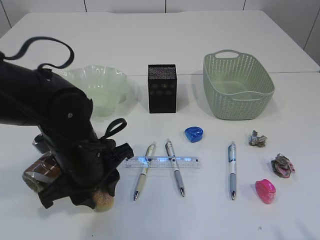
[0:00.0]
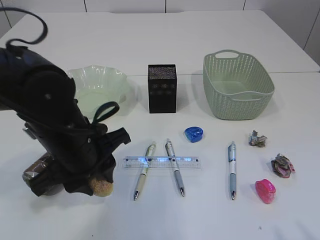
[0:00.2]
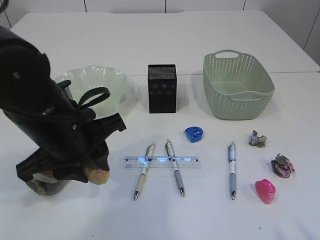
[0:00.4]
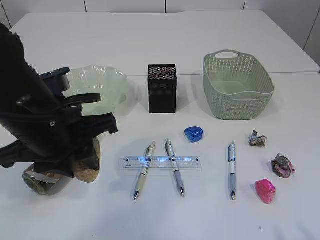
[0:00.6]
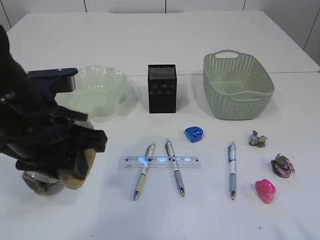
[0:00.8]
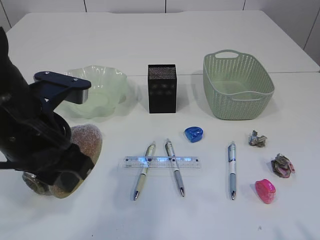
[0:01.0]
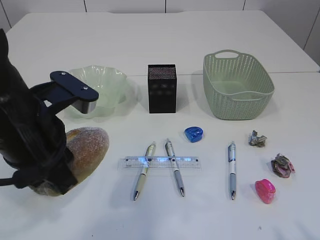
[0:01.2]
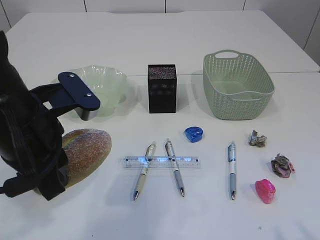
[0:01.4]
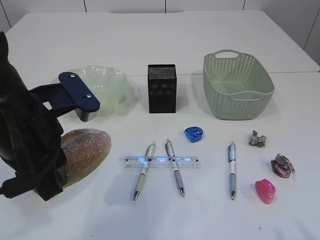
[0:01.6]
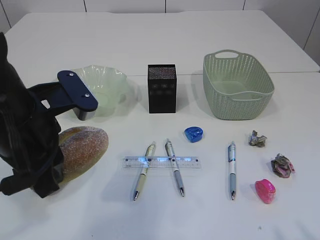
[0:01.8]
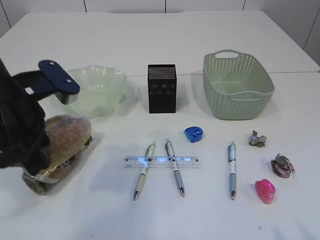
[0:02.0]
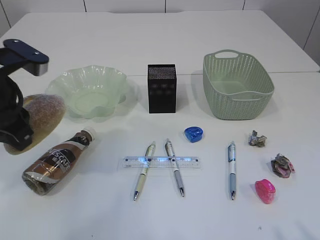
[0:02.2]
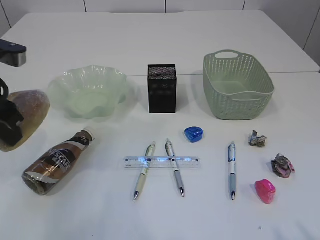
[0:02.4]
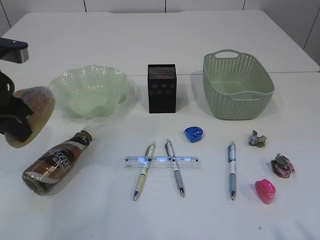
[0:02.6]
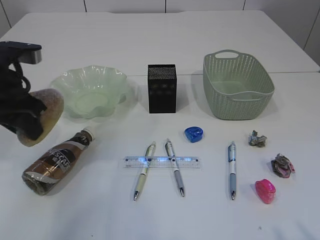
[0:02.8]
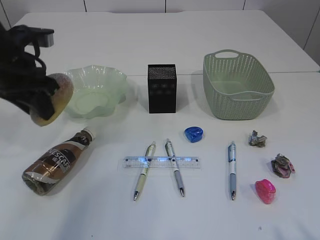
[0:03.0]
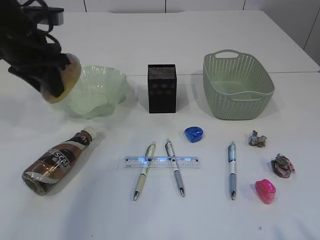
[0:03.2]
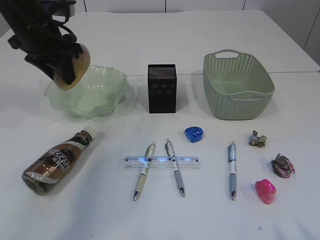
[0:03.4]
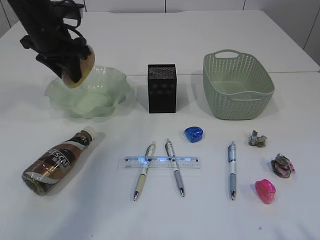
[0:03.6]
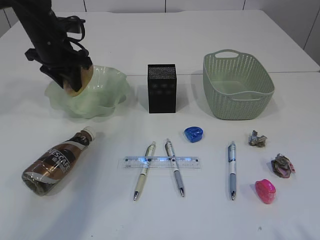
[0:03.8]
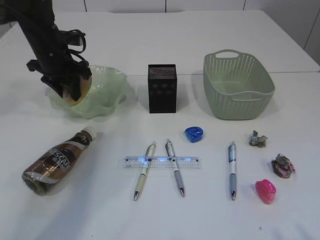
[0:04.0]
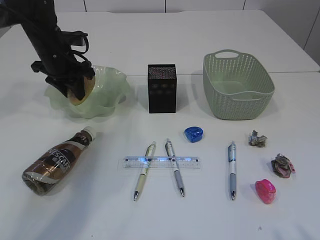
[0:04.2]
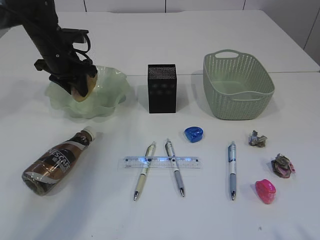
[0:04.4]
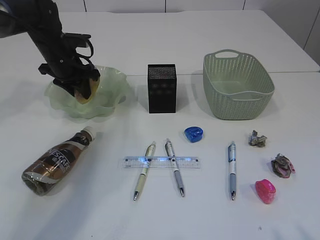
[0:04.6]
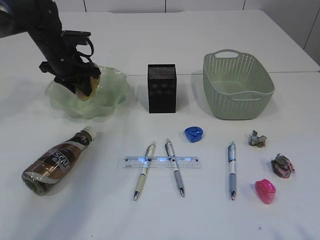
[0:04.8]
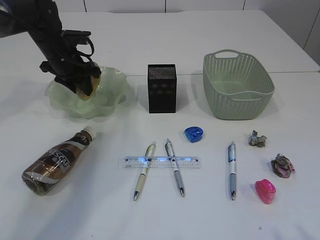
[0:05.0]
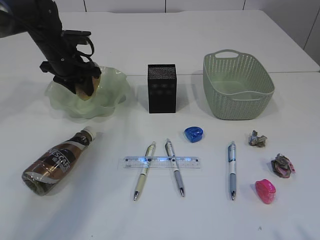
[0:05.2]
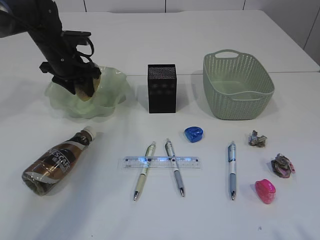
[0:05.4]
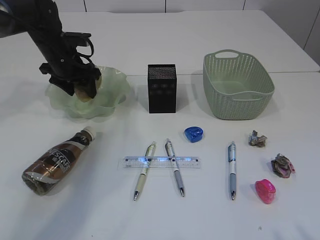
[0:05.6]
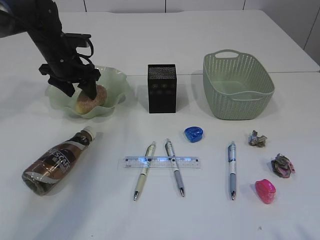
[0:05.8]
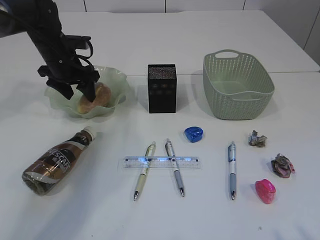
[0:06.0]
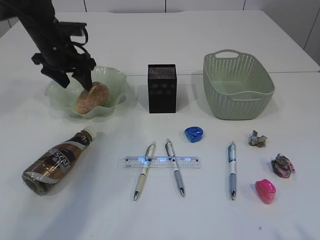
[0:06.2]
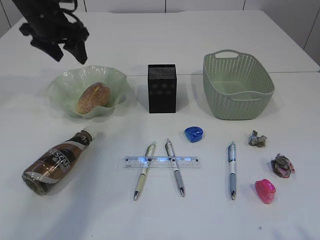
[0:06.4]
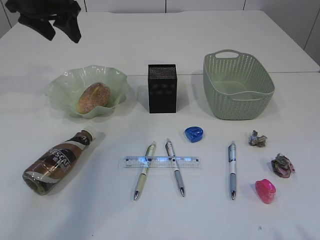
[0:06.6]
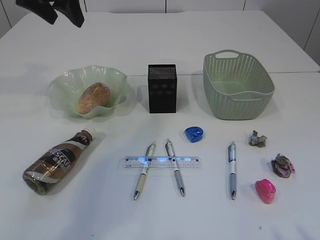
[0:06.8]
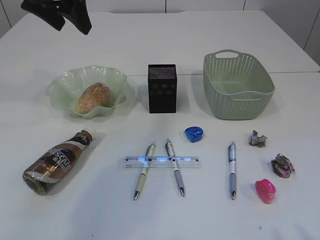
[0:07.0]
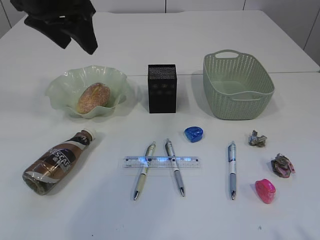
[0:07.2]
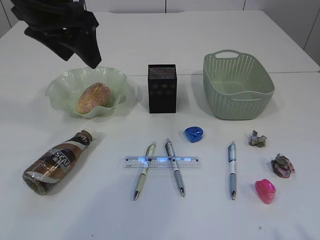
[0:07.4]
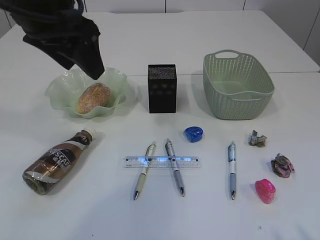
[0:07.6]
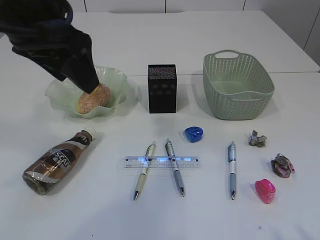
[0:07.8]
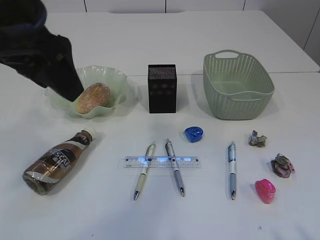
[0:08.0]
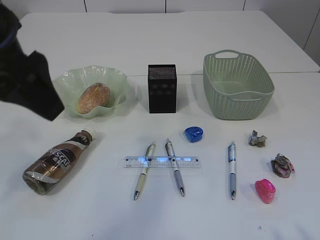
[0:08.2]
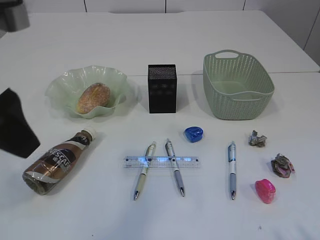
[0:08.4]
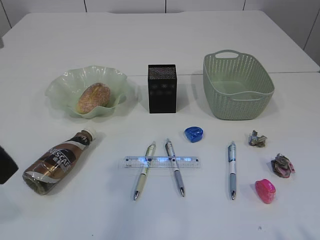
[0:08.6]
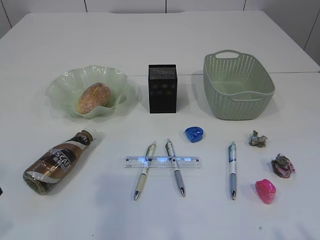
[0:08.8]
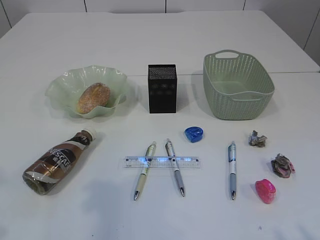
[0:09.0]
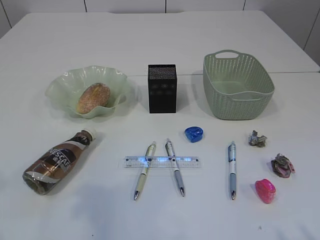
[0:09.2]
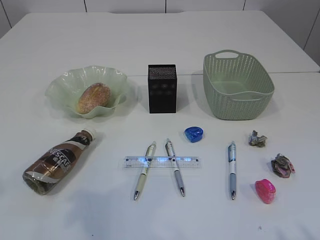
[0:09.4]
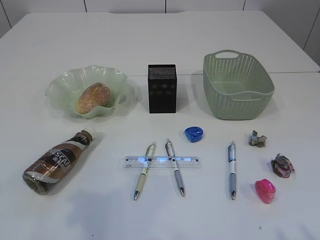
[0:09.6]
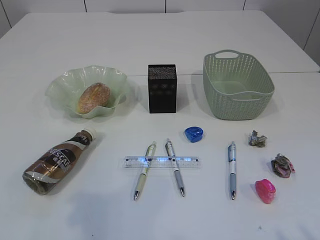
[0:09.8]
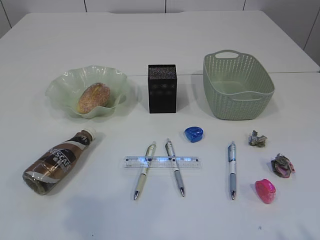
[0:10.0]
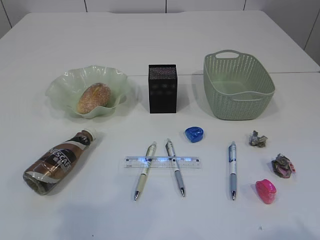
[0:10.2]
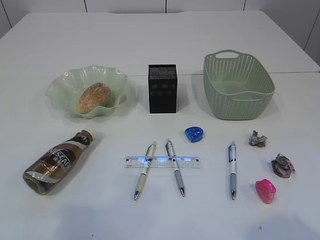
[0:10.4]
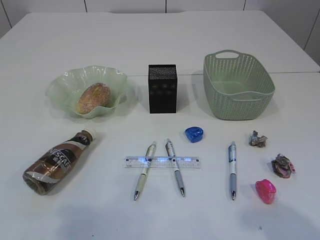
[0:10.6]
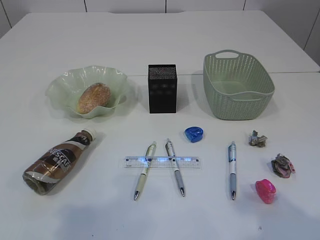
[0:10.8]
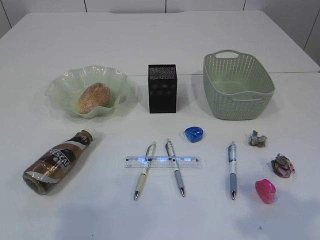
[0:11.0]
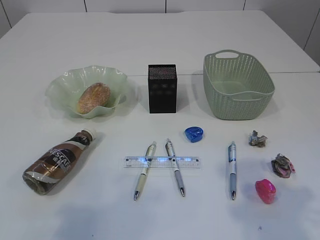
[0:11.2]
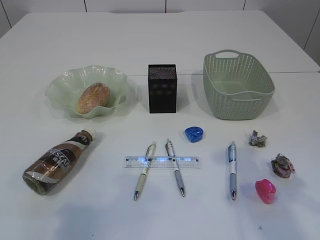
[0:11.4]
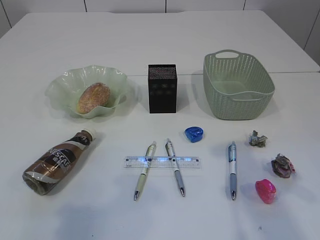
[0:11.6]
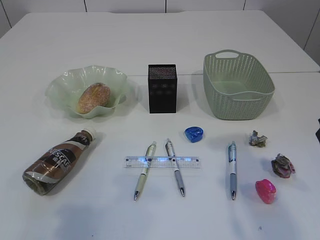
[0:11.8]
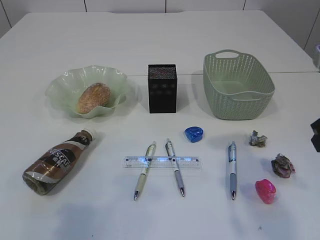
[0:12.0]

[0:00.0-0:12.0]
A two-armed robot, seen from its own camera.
Step, 0:00.4 to 0:07.8: place the bread in the plate.
0:00.0 to 0:01.6: The left gripper heads upward, covering approximately 10 cm.
0:01.6 to 0:03.0: The left gripper goes roughly 15 cm forward and to the left.
0:03.0 to 0:04.4: The left gripper moves forward and downward, approximately 15 cm.
0:04.4 to 0:06.0: The left gripper opens its fingers.
0:06.0 to 0:07.6: The left gripper travels backward and upward by roughly 25 cm.
0:07.6 to 0:09.0: The left gripper heads backward and to the left, covering about 15 cm.
0:10.4 to 0:12.0: The right gripper is displaced forward by some 15 cm.

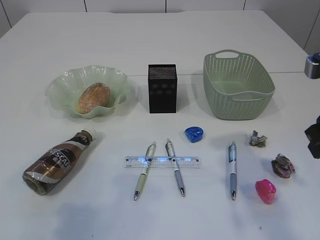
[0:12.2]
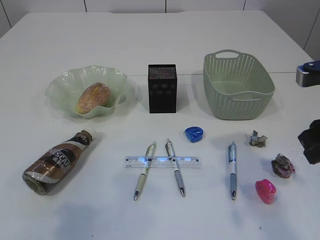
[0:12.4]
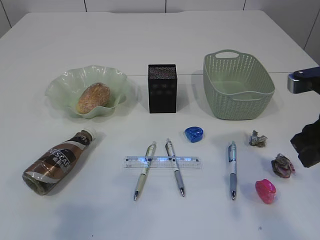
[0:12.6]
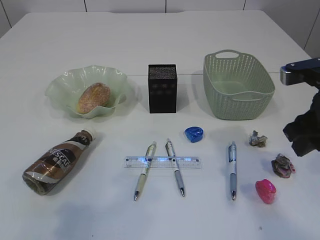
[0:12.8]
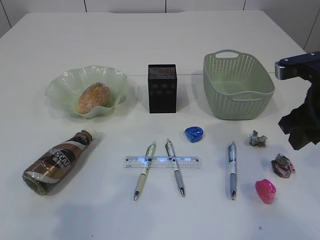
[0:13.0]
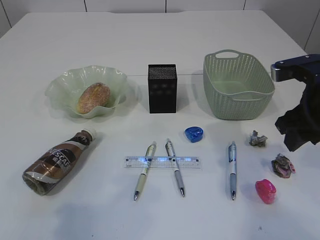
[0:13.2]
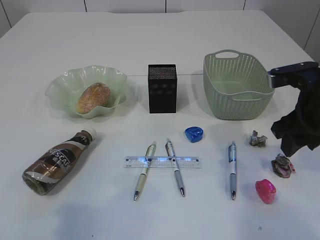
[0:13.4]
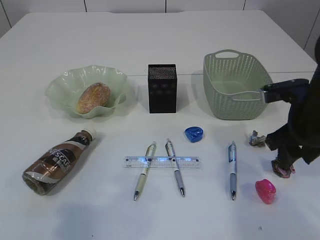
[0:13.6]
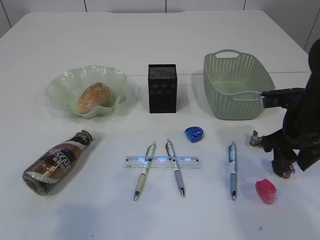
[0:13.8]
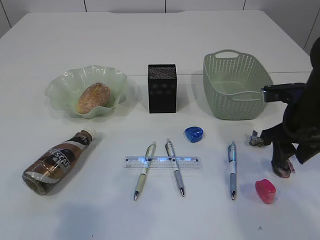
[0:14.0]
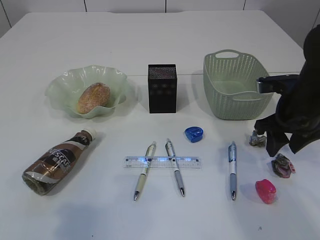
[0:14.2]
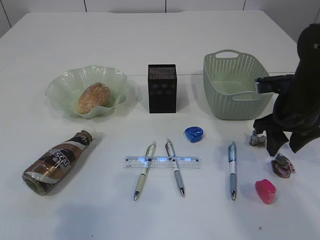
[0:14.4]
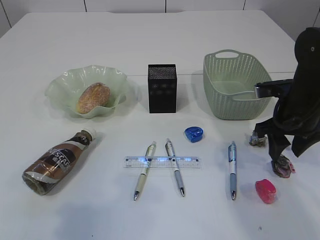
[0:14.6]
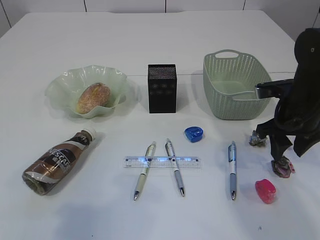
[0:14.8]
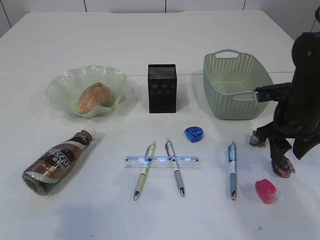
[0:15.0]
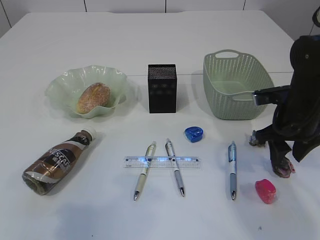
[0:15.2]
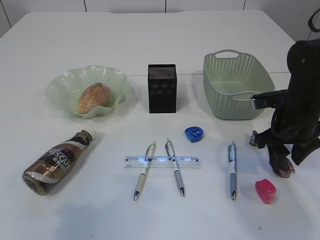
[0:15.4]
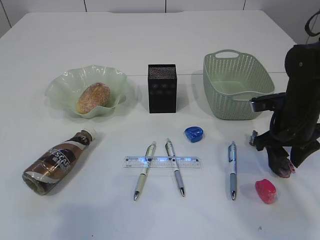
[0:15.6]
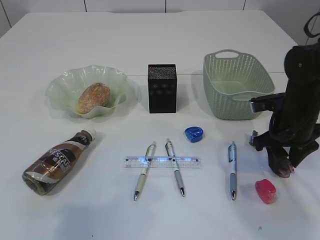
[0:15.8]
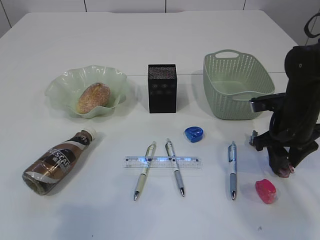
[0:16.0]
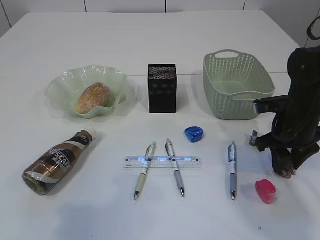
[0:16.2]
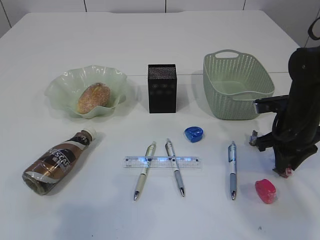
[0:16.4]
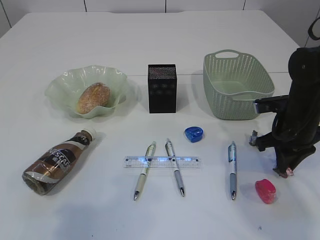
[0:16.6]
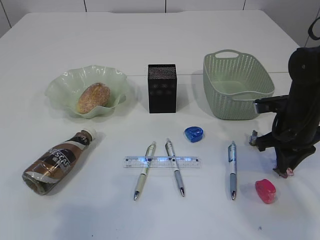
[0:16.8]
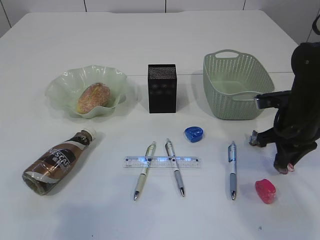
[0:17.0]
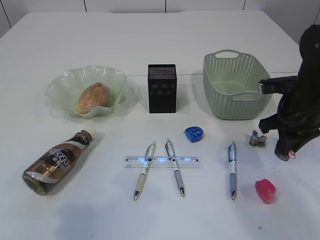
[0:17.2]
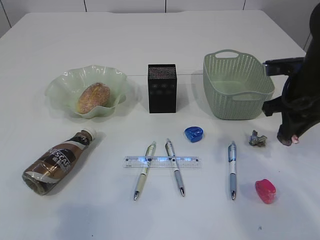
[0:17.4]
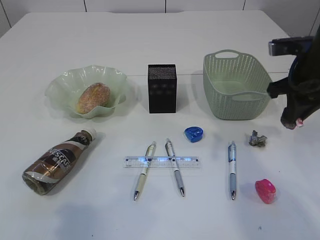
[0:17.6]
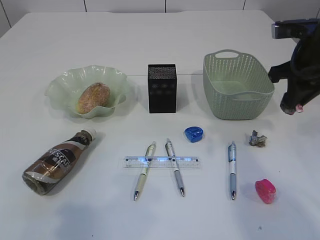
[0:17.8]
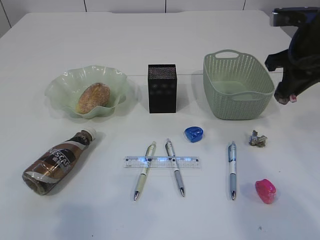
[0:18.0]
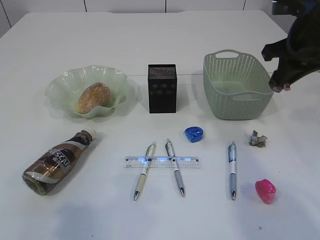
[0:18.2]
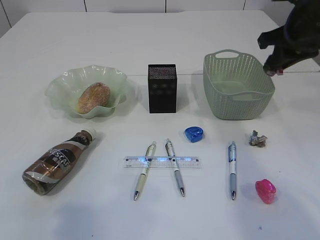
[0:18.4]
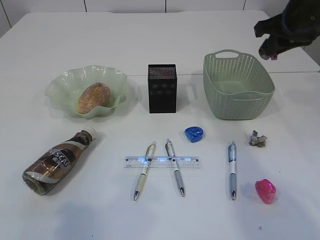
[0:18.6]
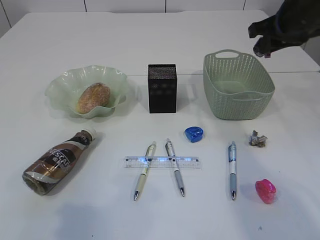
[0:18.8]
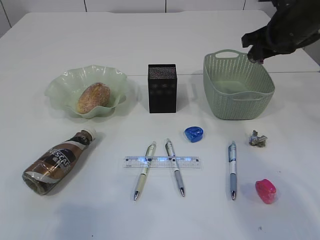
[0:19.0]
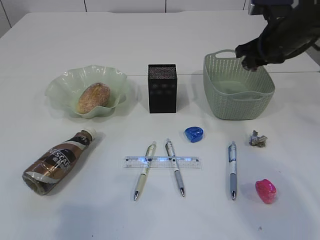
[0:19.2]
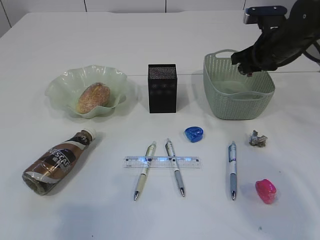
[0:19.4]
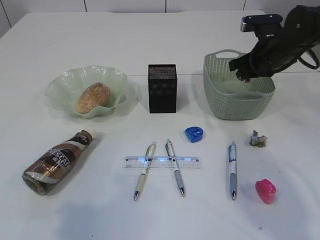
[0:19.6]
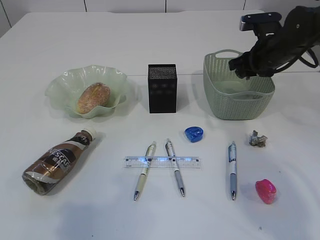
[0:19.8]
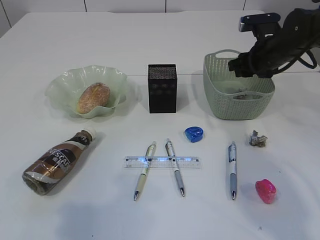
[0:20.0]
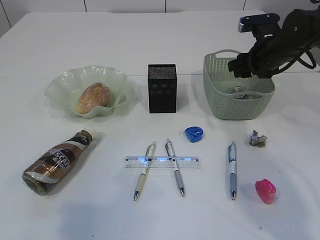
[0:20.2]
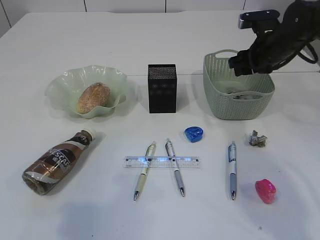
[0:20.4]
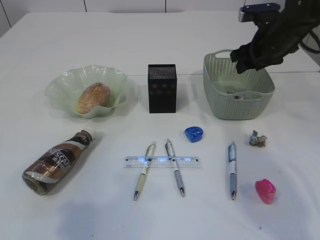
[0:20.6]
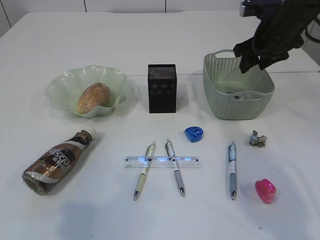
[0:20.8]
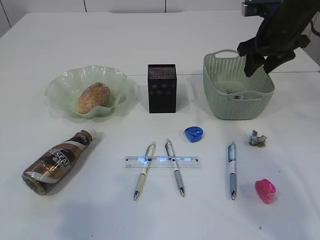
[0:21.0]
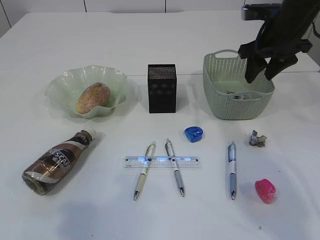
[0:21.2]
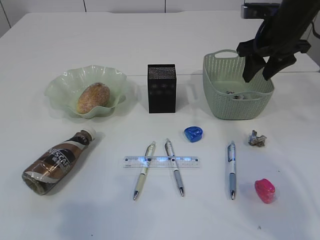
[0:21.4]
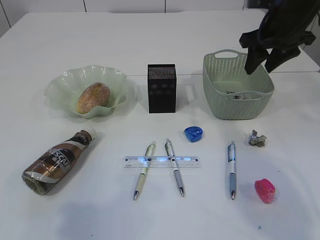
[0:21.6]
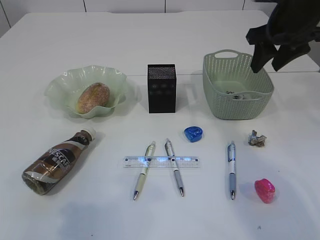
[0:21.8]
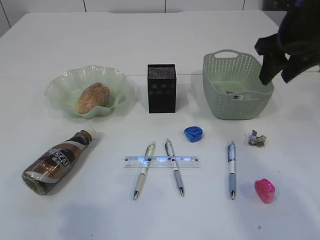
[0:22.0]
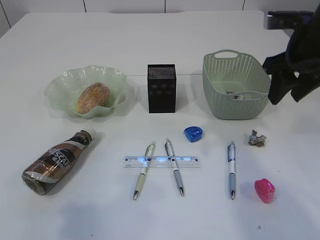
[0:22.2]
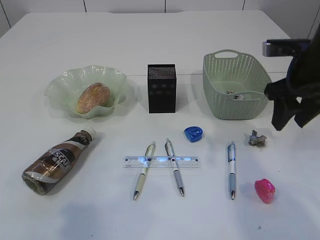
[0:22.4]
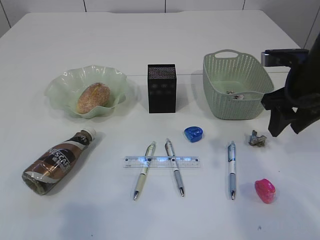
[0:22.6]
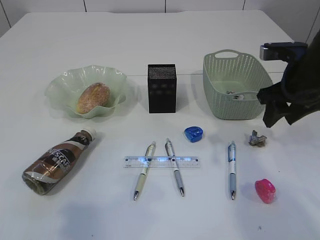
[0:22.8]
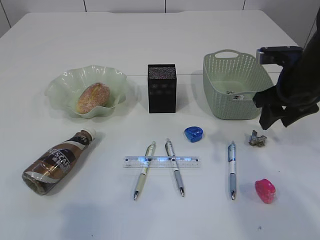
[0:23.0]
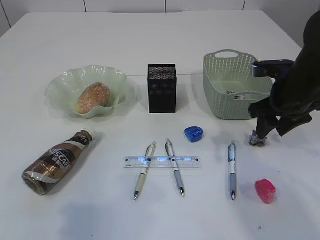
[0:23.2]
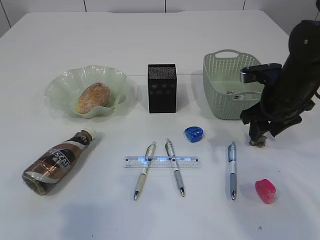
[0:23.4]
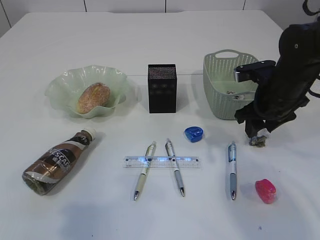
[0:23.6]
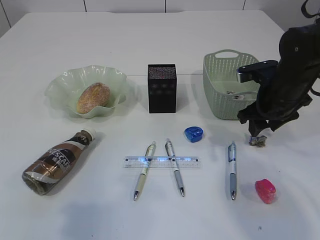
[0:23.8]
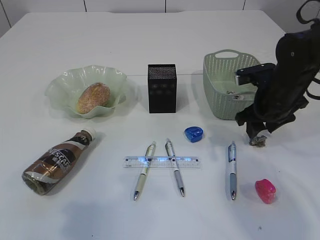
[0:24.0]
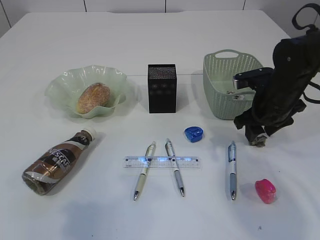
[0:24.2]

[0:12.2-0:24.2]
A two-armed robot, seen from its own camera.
Step, 0:12.2 to 0:17.8: Pick up the waste paper.
Step, 0:18.0 to 0:21.4: Place the waste paper in the basket.
0:12.2 to 0:13.8: The right gripper moves downward and forward, roughly 10 cm.
0:13.8 to 0:15.2: The grippers stay close to where they were, moving slightly.
0:15.2 to 0:16.6: The right gripper closes its fingers.
0:16.6 to 0:18.2: The right gripper heads upward, covering approximately 15 cm.
0:18.2 to 0:19.8: The right gripper heads forward and downward, covering about 15 cm.
0:19.8 to 0:21.2: The right gripper moves upward, approximately 5 cm.
0:21.2 to 0:22.6: The right gripper heads backward, covering some 10 cm.
0:22.6 to 0:24.2: The right gripper heads downward, covering roughly 10 cm.
